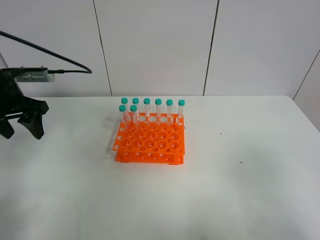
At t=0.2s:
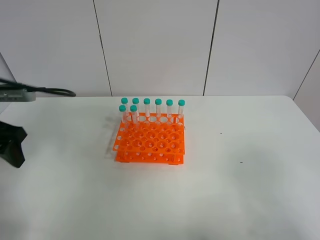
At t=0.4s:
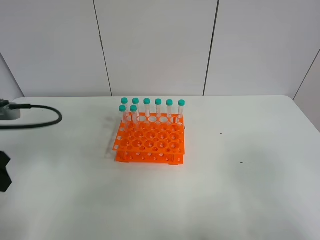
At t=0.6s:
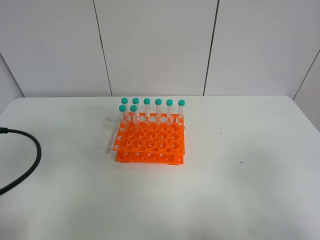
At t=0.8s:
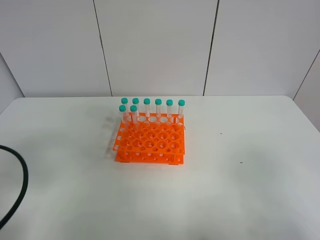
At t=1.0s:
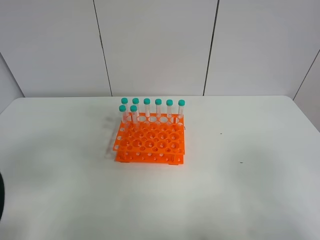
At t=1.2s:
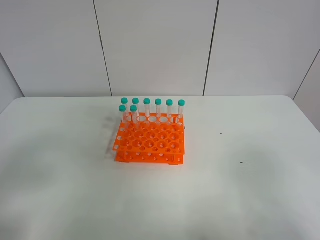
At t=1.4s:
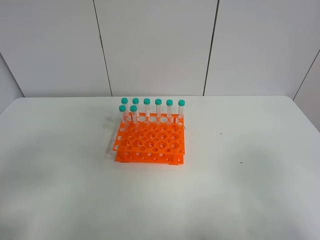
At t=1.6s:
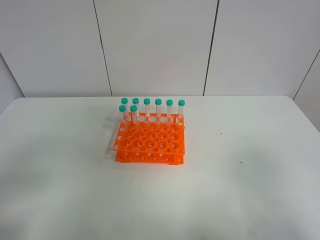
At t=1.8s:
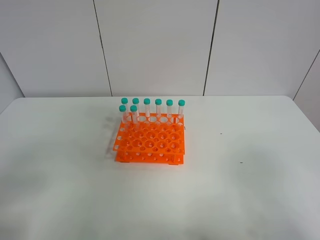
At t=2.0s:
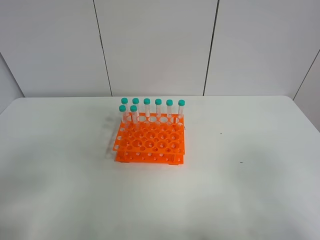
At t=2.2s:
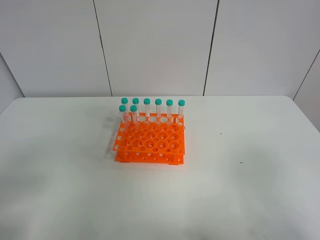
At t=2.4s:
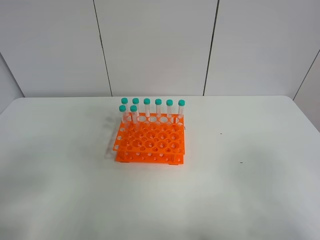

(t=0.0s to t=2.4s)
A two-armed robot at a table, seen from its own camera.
Task of the whole recording: Put the test tube on the table back onto the test tube rack.
t=0.0s - t=1.2s: The left gripper is displaced backward by roughly 25 cm.

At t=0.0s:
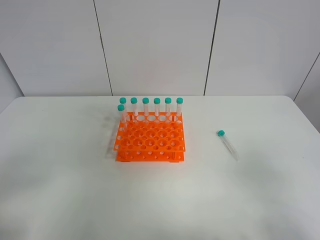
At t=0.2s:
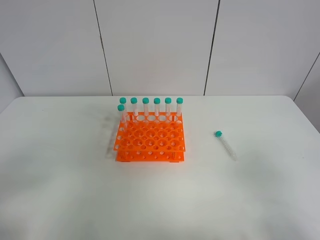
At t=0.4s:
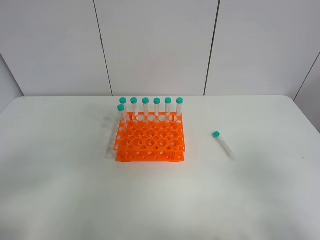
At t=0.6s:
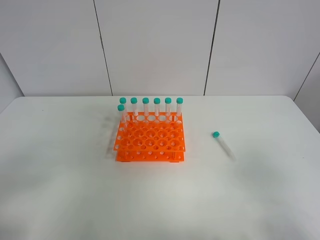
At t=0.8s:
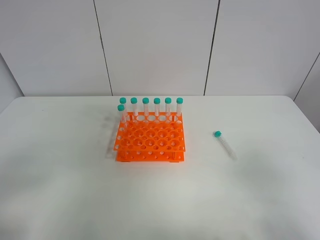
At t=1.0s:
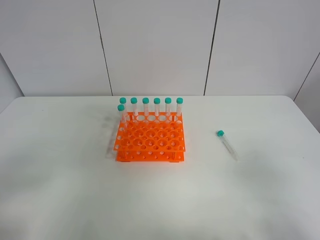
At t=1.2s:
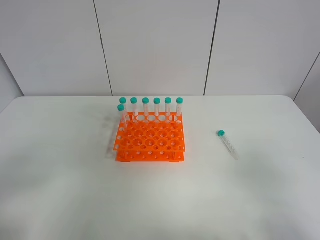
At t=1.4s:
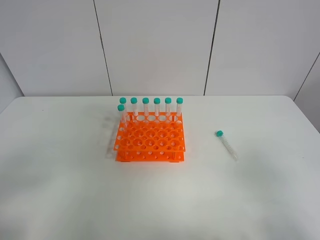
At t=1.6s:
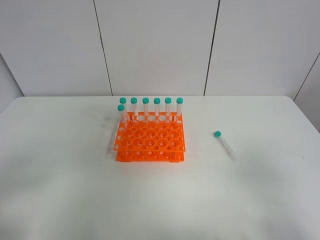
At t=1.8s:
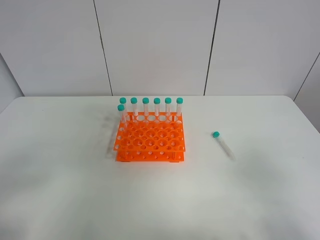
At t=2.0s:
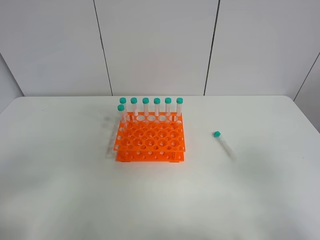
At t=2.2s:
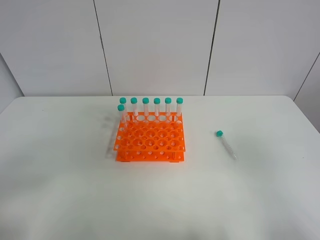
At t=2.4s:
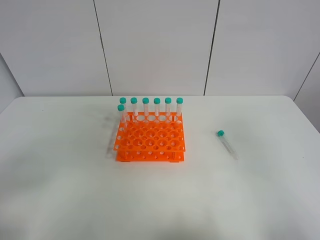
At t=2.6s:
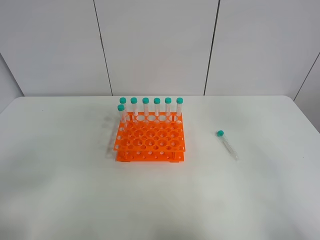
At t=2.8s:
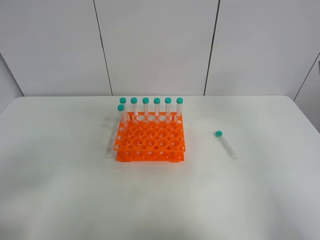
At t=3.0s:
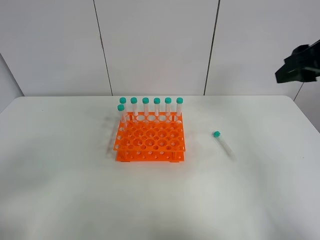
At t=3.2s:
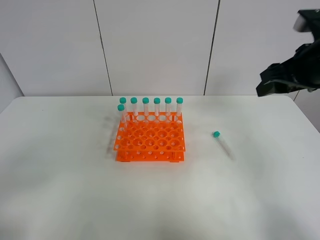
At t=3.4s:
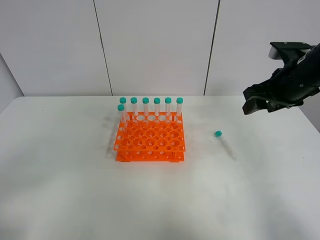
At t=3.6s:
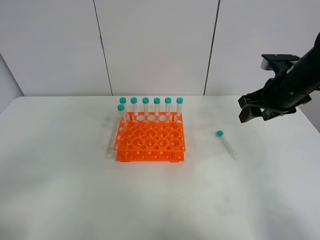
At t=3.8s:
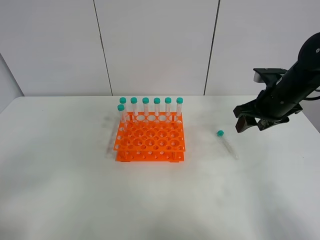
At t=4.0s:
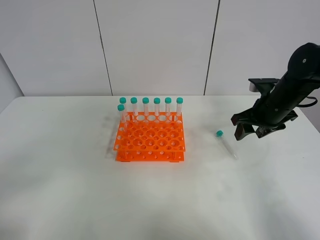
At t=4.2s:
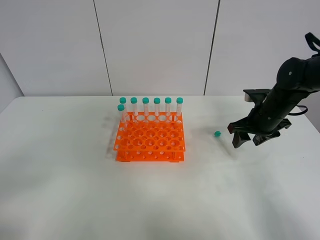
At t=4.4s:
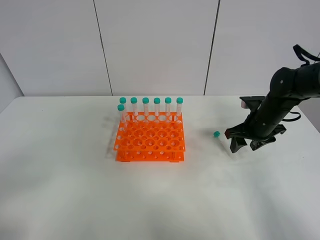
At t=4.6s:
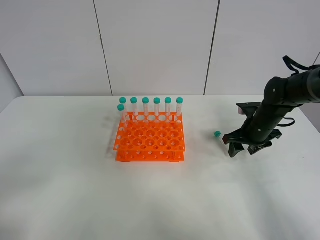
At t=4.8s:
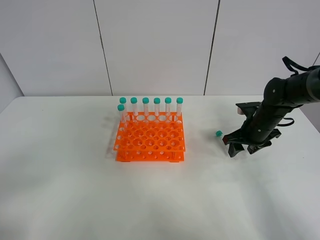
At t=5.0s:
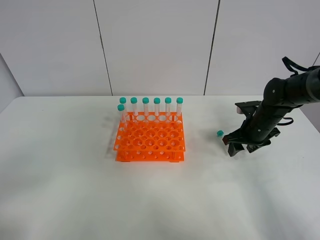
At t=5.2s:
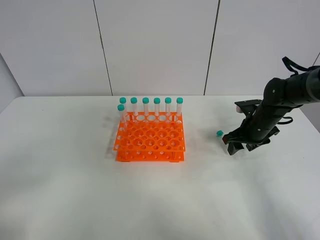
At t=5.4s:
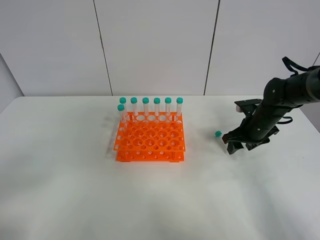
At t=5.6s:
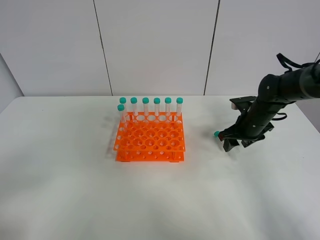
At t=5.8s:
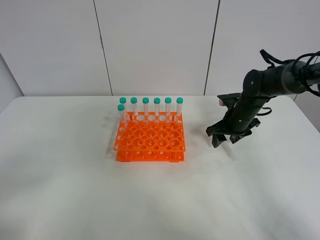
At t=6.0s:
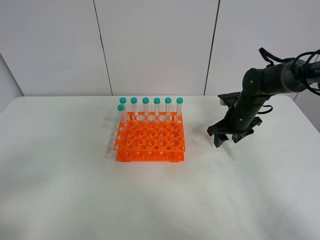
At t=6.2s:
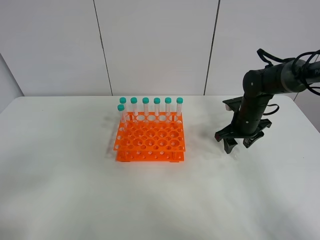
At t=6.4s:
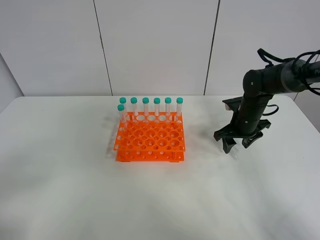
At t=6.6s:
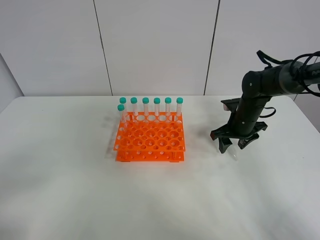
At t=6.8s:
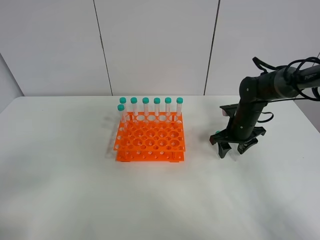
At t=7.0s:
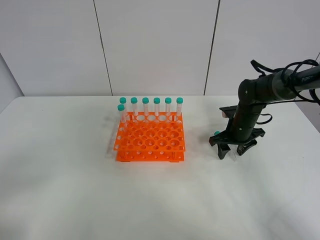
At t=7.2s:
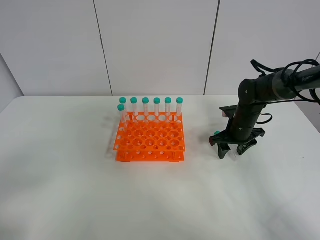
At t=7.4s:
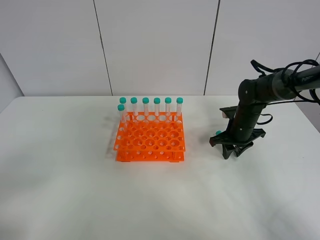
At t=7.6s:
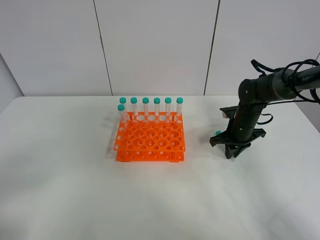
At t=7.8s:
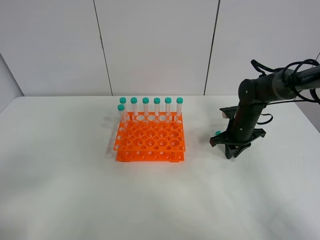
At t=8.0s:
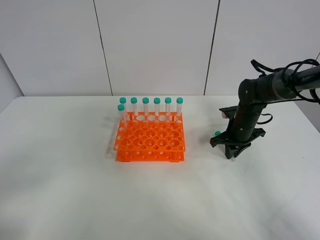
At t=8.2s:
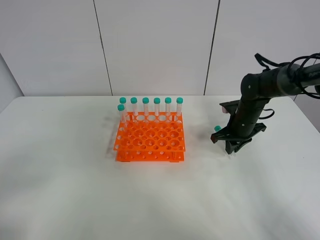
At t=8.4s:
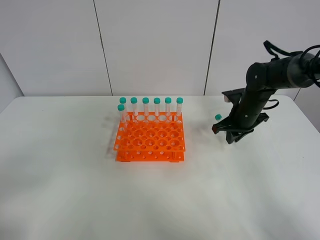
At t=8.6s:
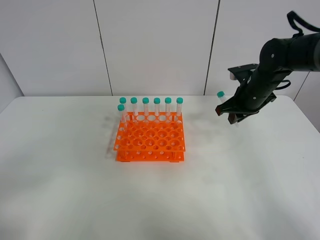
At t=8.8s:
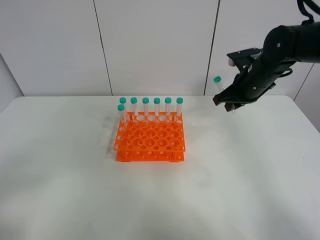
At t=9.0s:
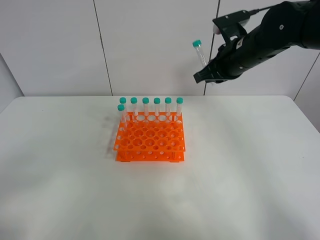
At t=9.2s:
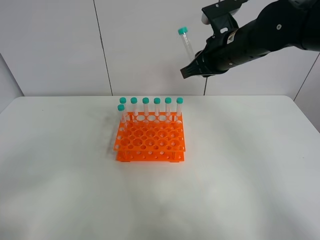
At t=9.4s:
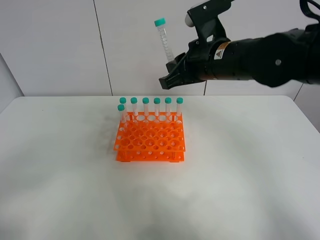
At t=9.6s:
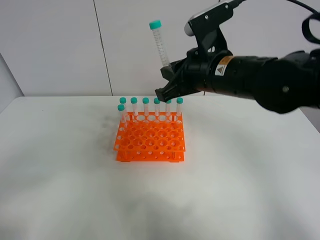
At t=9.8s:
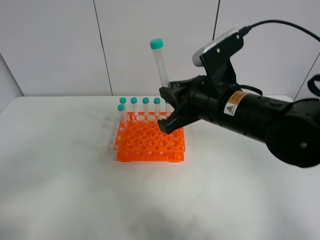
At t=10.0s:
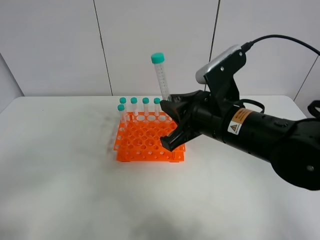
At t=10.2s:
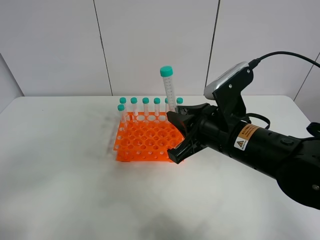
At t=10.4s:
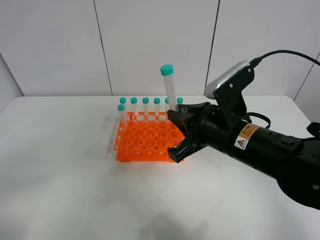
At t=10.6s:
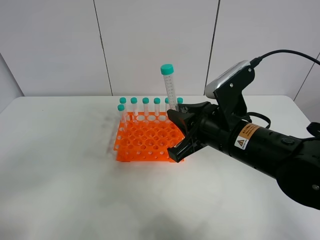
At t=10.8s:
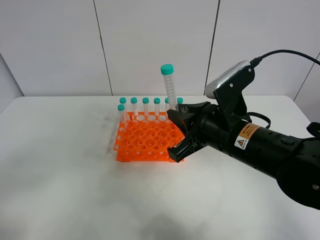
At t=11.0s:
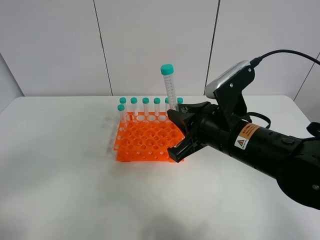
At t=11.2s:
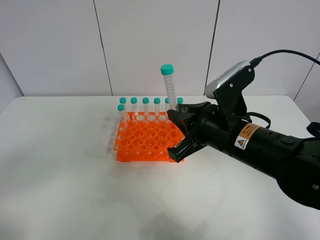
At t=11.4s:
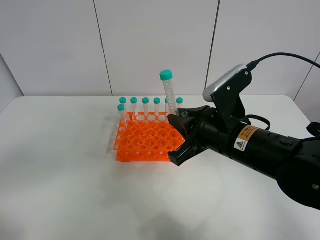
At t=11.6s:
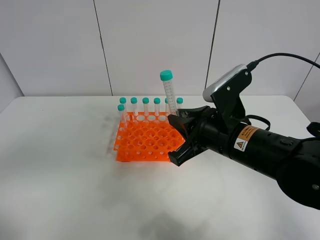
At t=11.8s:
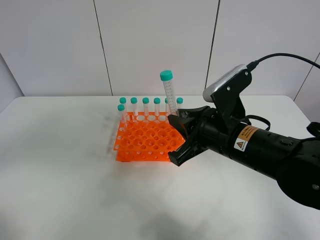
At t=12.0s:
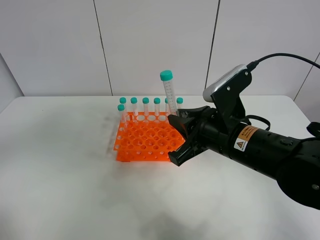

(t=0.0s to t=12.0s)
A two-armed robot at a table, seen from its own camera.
Task of the whole recording: Put the test tube on the table back onto the test tube rack.
Step, t=0.0s - t=7.6s: Pick up the test tube with the right gripper.
t=0.0s - t=1.6s: Neither gripper changes place.
t=1.6s - t=3.0s: The right gripper moves forward, about 25 cm.
t=3.0s - t=4.4s: The right gripper travels downward and forward by some 25 cm.
t=4.4s - t=6.0s: The right gripper shifts by roughly 5 cm.
t=6.0s - t=7.6s: The right gripper closes its fingers.
t=7.6s - t=9.0s: The right gripper is displaced upward by about 20 cm.
t=9.0s - t=10.4s: The right gripper heads backward and downward, covering roughly 15 cm.
t=10.4s - t=12.0s: The left gripper is displaced upward and forward by roughly 15 cm.

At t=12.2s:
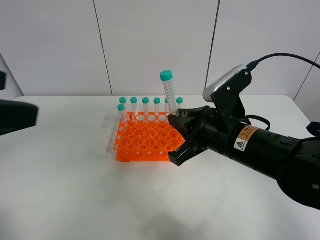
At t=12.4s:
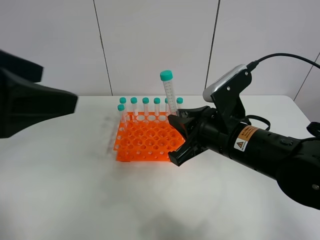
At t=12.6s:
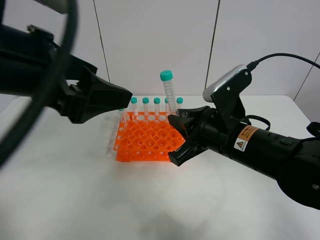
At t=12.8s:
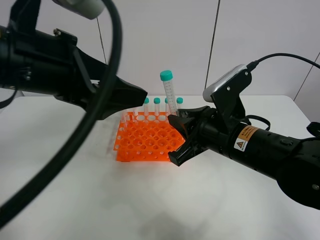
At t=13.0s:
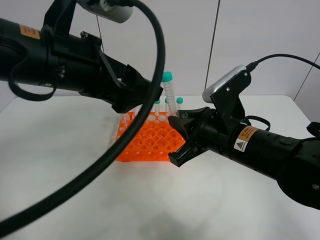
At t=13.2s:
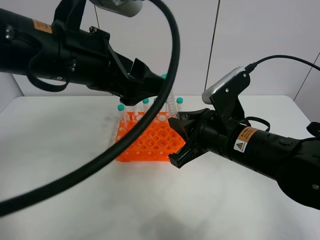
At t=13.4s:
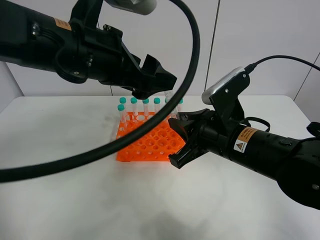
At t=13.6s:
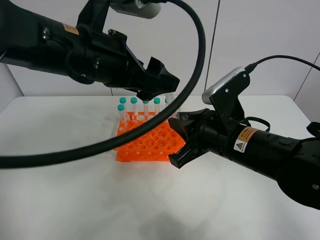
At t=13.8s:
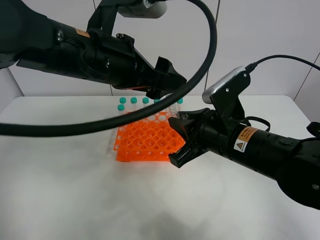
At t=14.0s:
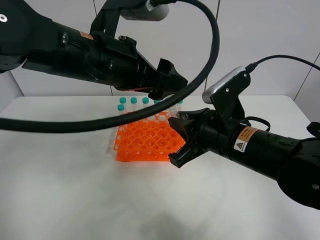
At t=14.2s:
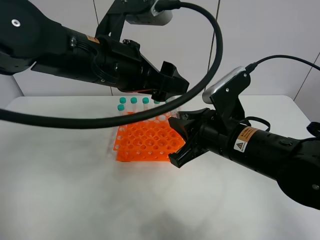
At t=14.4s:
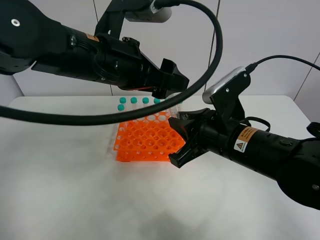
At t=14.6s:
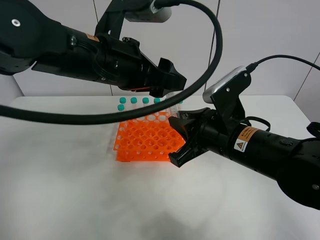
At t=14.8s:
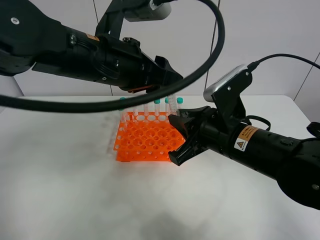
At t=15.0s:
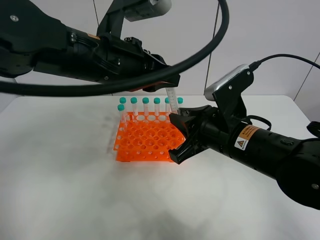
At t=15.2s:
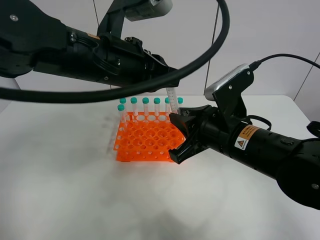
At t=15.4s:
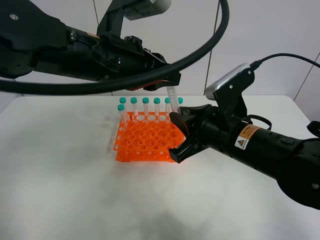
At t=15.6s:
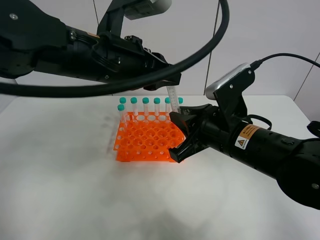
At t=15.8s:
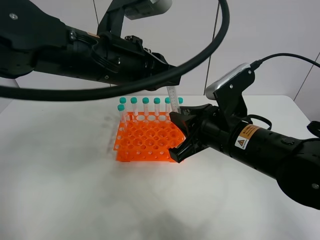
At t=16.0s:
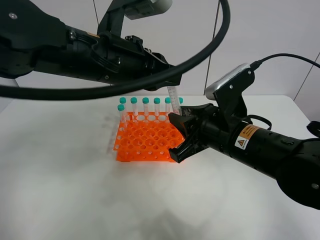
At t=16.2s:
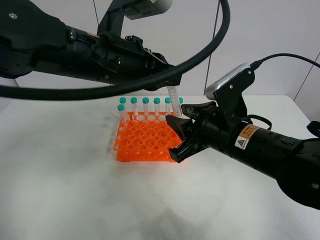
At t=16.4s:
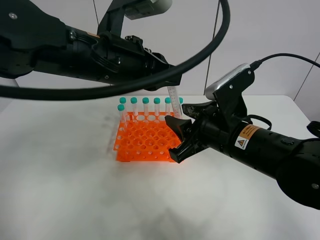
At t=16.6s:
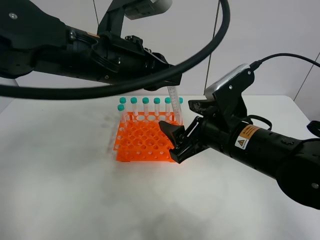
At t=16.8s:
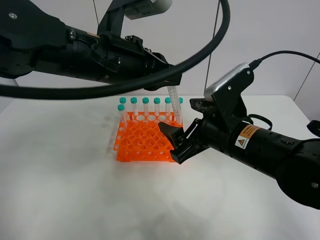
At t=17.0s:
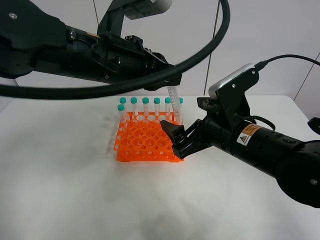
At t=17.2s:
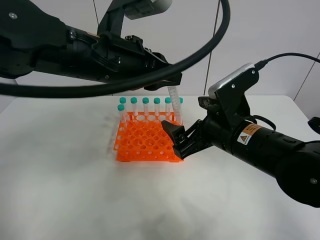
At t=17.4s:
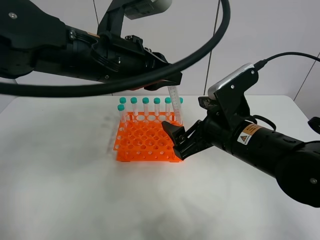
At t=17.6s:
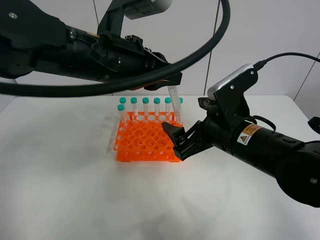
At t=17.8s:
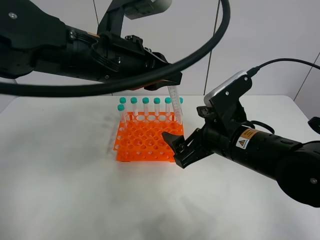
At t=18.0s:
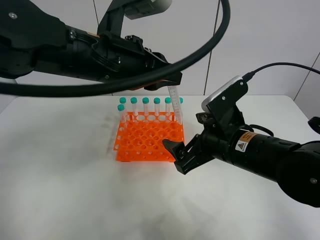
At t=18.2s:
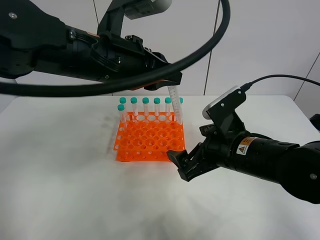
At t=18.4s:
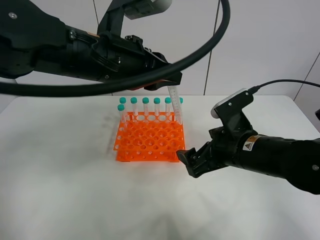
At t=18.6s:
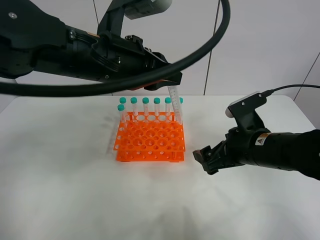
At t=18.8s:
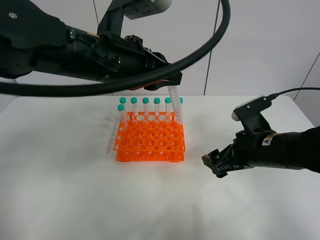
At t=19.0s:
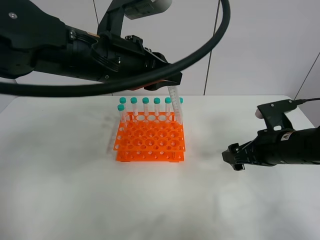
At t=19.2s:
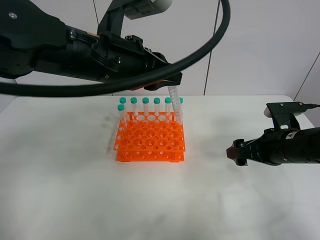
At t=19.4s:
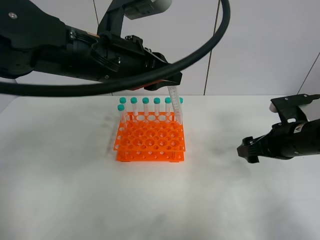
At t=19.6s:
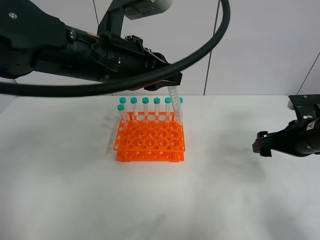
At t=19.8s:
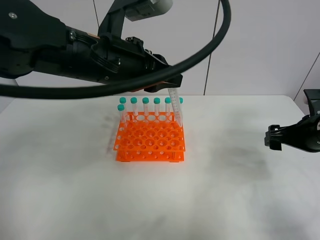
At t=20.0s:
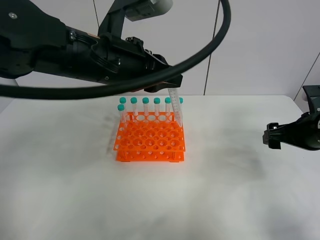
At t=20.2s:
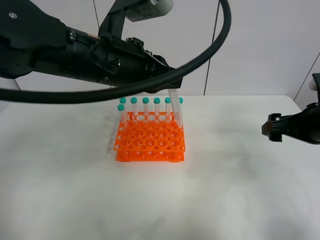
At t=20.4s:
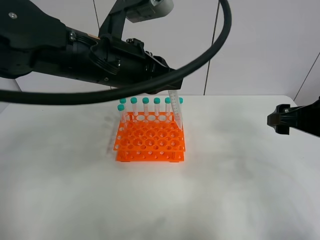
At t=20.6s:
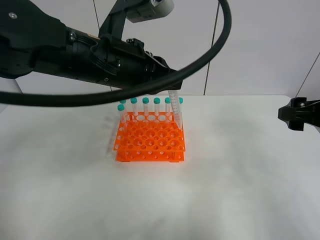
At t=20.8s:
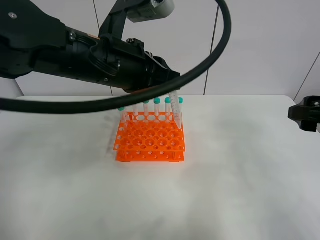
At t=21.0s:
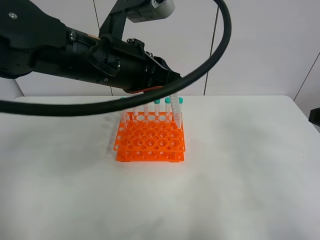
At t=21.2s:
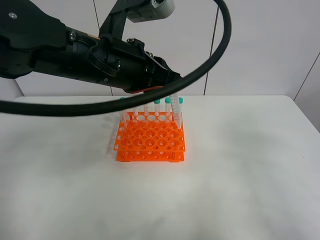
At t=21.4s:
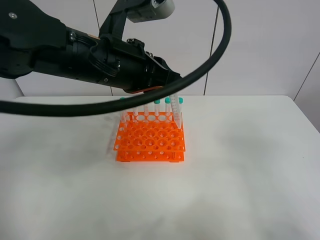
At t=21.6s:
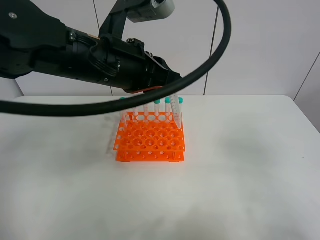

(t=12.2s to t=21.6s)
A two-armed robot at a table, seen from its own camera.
Task of the whole recording: Put the test tube on the table back onto the test tube rack.
Step, t=12.2s - t=16.2s: Move the test tube from the right gripper to the left gripper.
t=12.2s - t=13.8s: The left gripper is displaced forward and to the right by some 20 cm.
t=13.8s - t=15.4s: The left gripper closes up.
t=15.4s - t=17.0s: The right gripper opens up.
t=18.4s - t=20.0s: The right gripper travels to the right by roughly 15 cm.
t=20.0s - t=21.6s: The right gripper travels backward and upward by some 20 cm.
